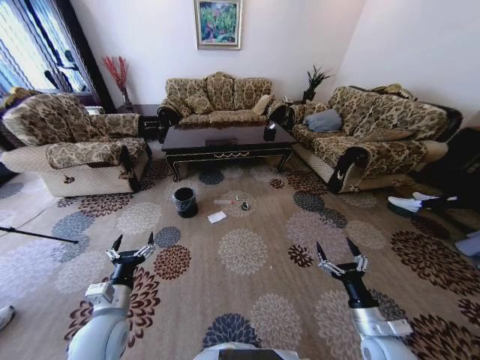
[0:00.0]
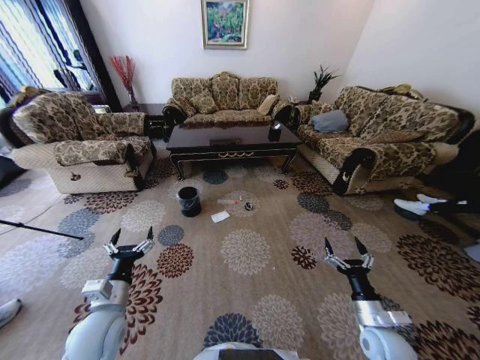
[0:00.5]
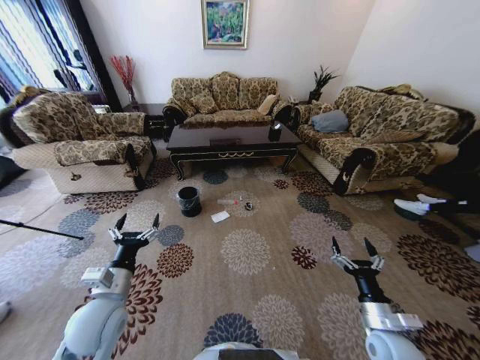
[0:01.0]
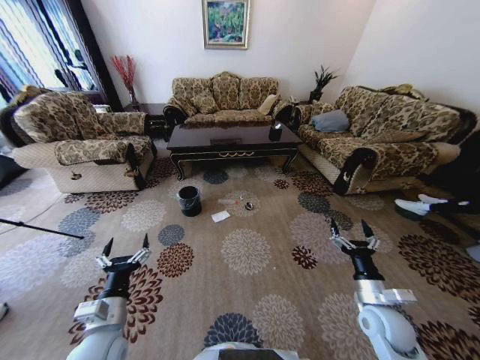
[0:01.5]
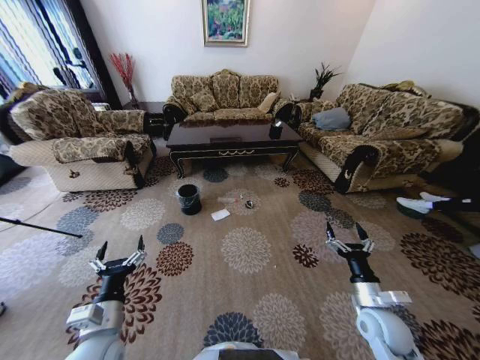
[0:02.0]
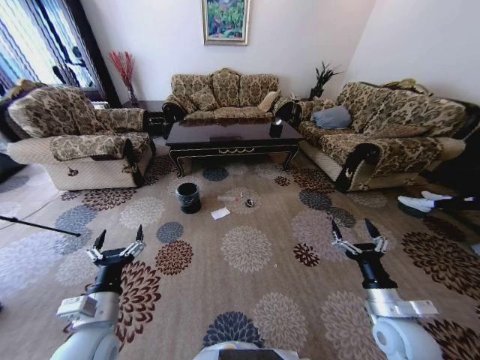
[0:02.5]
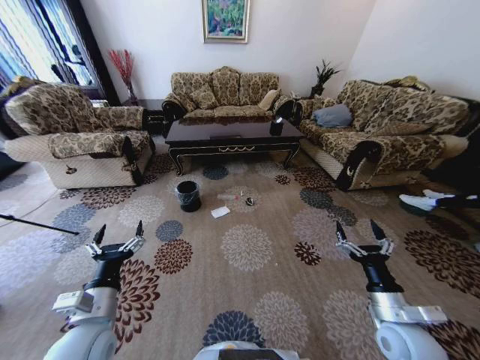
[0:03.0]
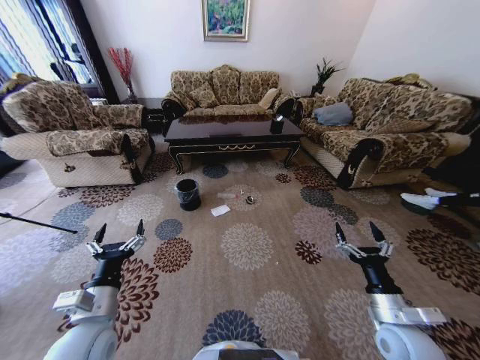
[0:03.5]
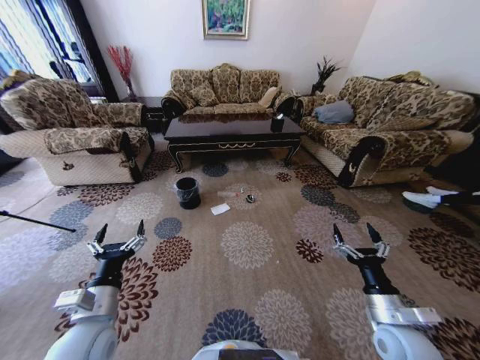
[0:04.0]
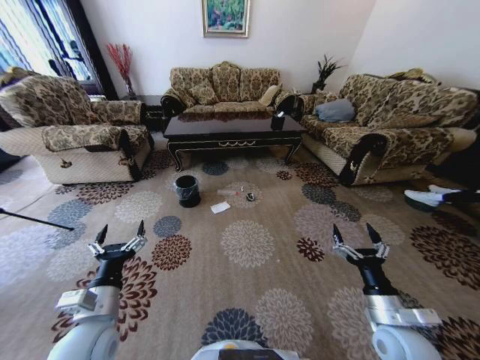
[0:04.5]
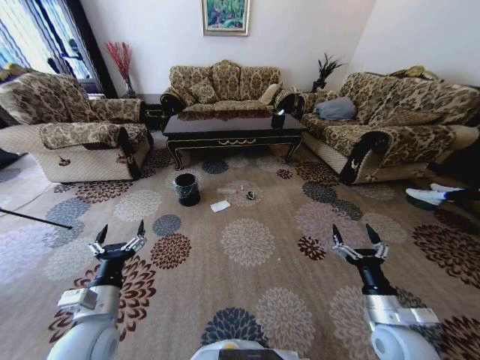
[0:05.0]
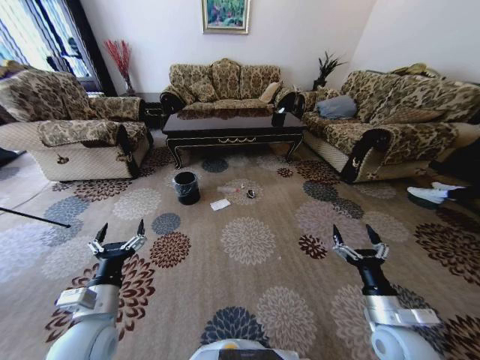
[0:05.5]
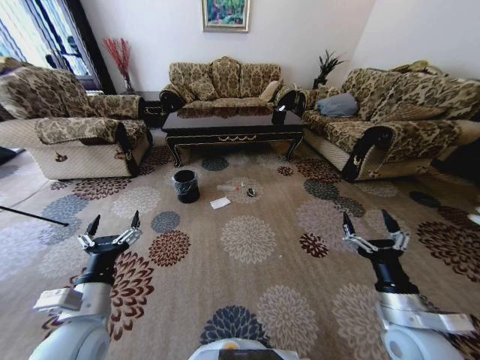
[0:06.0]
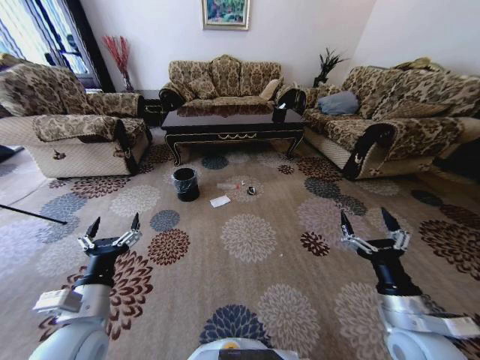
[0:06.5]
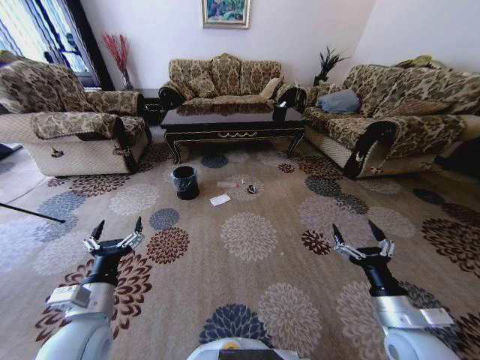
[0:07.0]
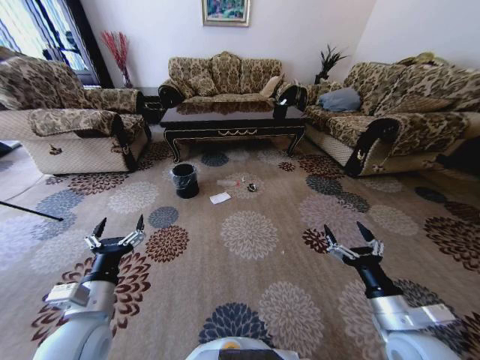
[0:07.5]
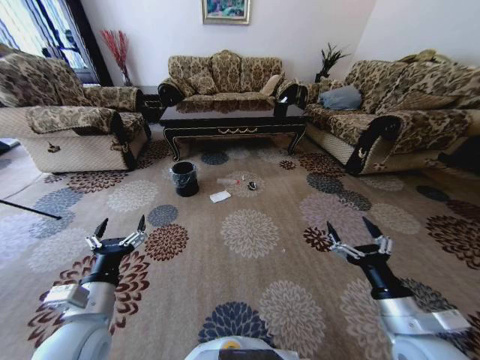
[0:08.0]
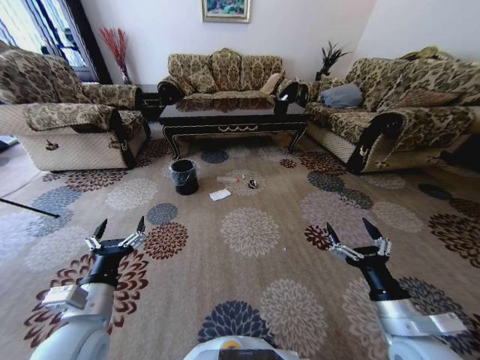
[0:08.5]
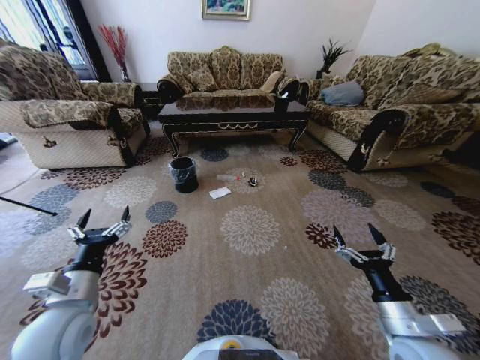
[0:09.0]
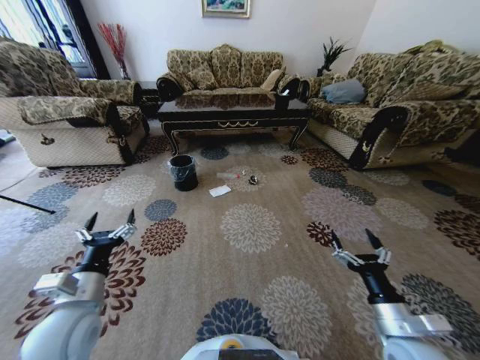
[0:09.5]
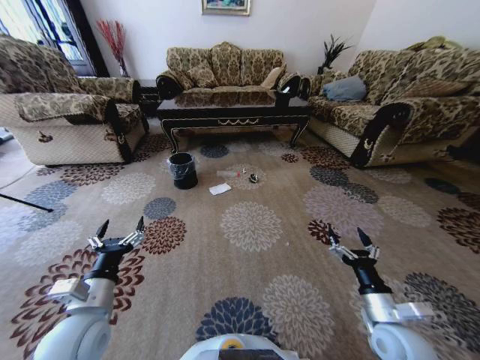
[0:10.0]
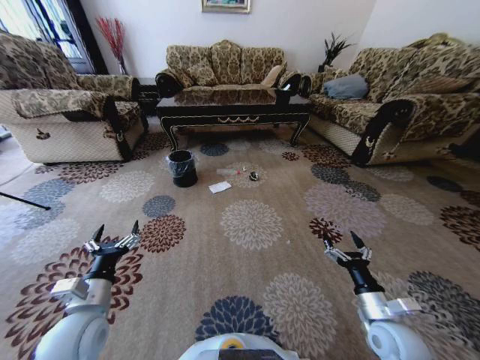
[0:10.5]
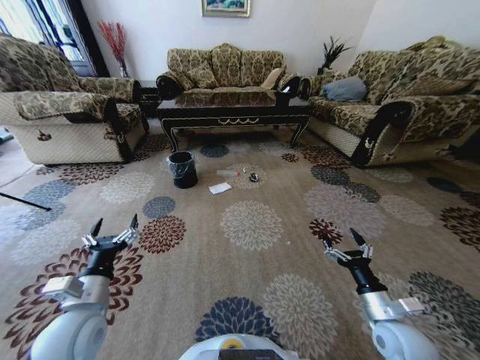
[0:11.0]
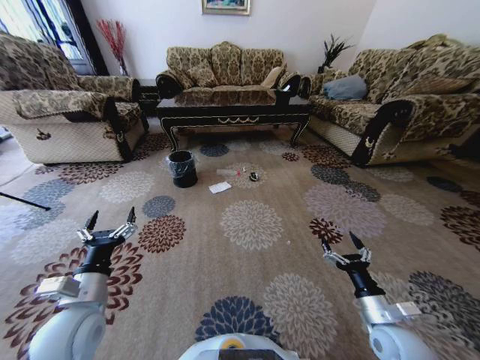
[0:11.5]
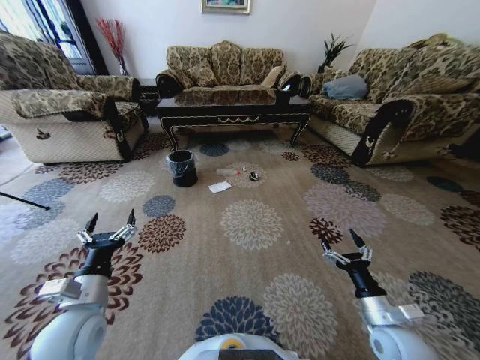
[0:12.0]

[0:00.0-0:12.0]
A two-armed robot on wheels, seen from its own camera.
Task of the whole recording: Move to the front of the table and pick up the trash from the floor, then place it into the trash bin.
0:02.0 to 0:04.0: The right gripper changes place by approximately 5 cm.
0:08.0 to 0:10.0: The right gripper is displaced downward by approximately 5 cm.
0:10.0 to 0:12.0: The grippers move only a little.

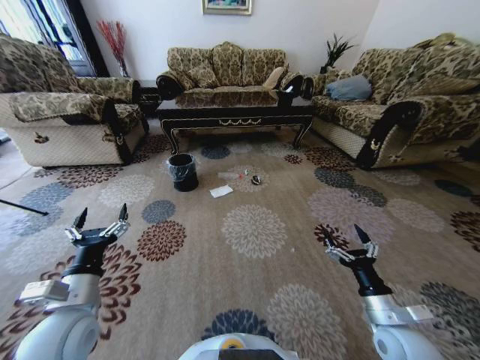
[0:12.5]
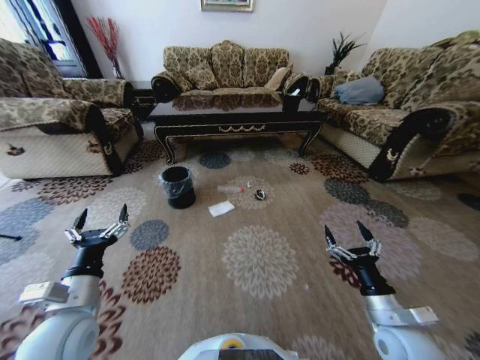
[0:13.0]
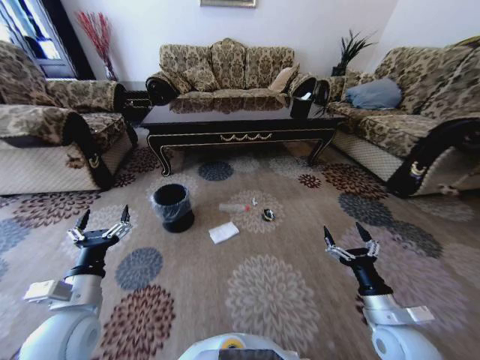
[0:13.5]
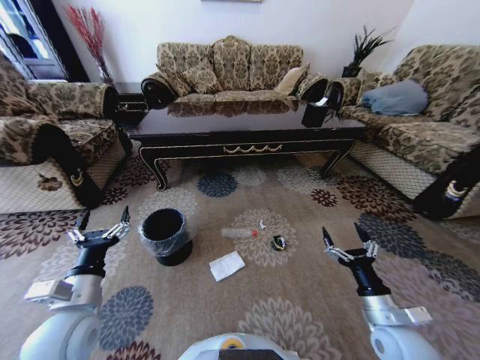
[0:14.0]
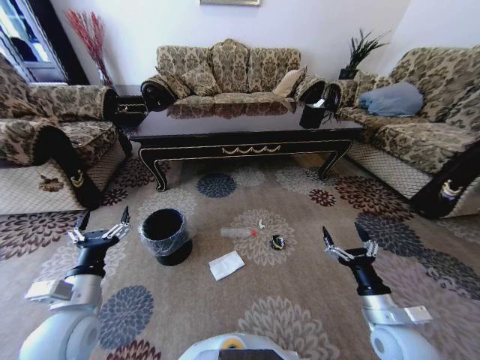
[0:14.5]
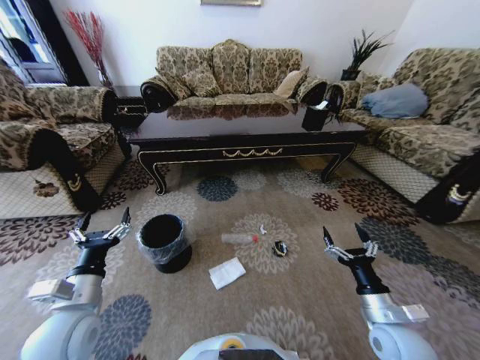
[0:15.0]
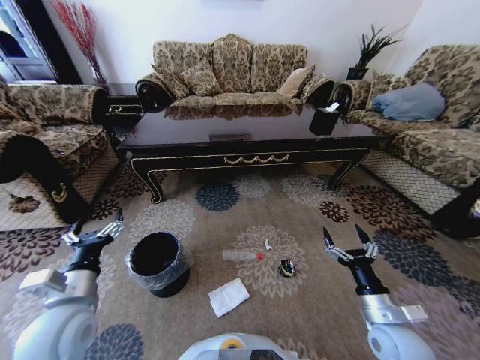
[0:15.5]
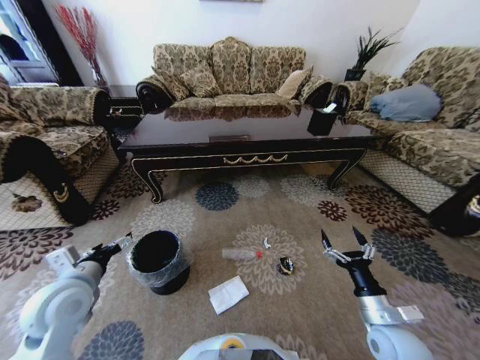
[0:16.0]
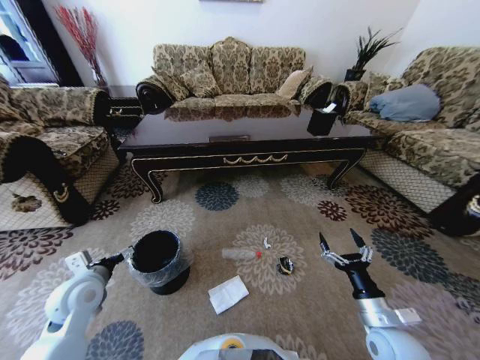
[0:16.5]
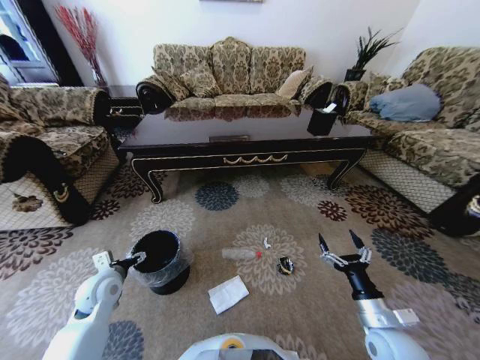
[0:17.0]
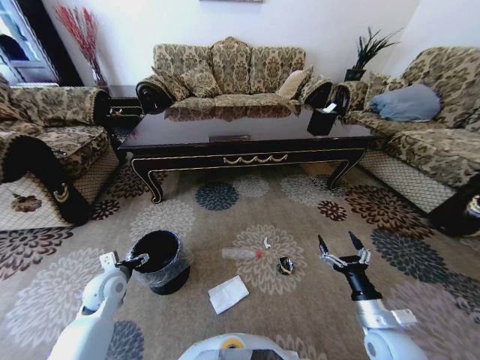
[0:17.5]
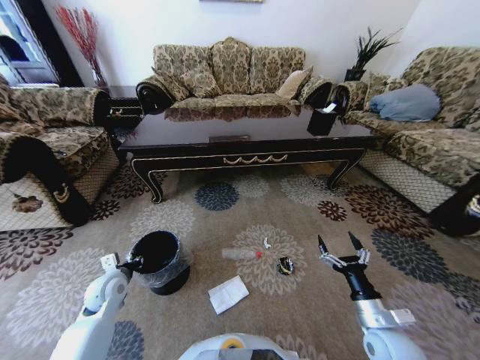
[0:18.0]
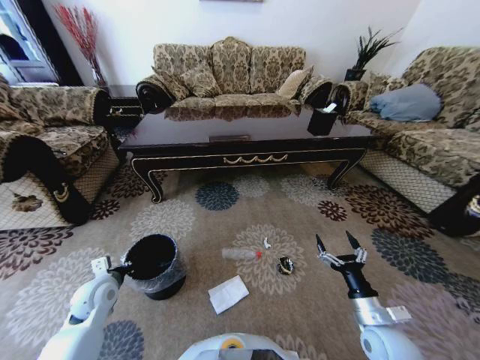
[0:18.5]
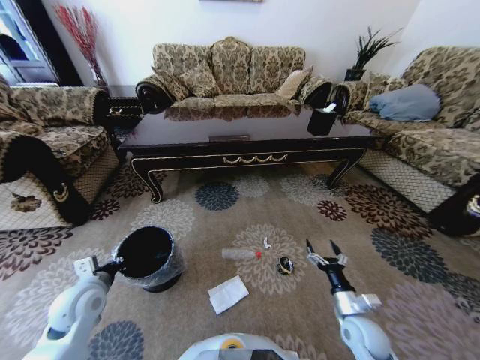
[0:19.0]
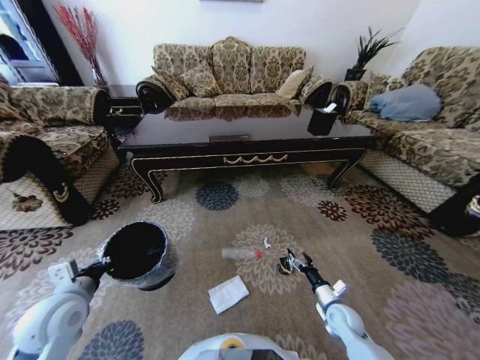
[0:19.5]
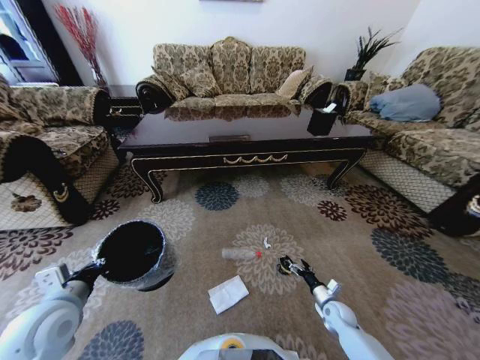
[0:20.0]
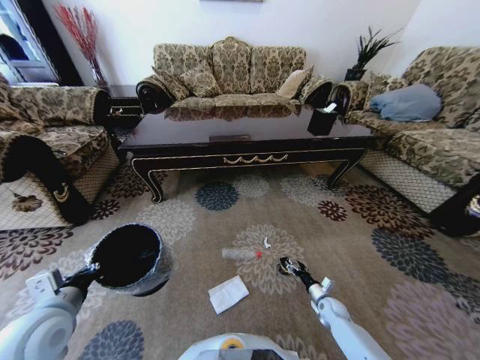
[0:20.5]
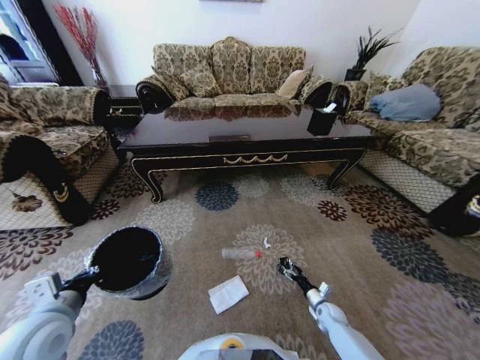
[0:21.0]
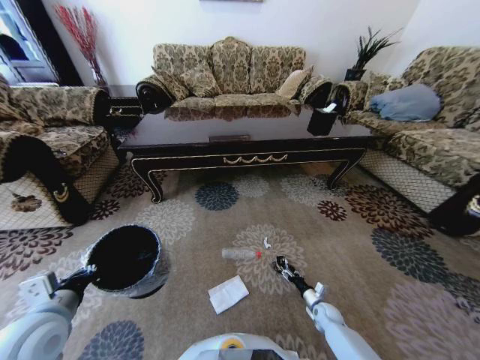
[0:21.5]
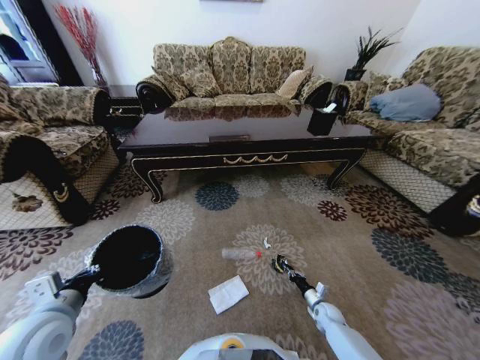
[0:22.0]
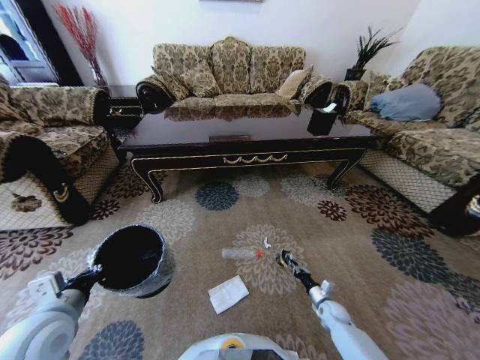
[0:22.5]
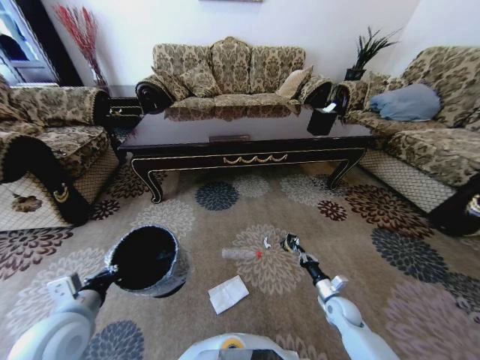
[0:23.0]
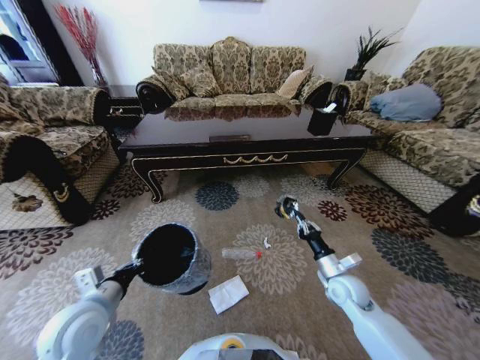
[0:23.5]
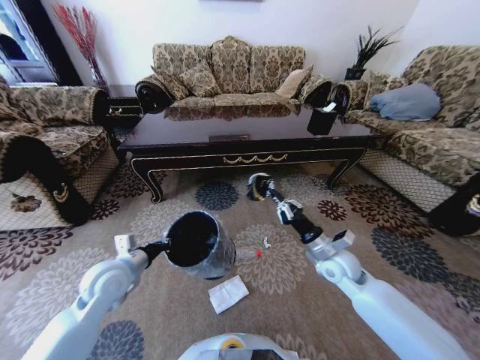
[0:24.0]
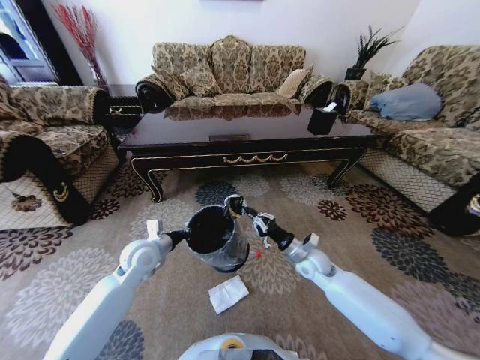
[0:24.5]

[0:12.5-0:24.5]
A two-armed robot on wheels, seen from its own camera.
Task of the whole recording: Move to the front of the table and pick up the trash from the floor, then place it into the trash bin.
0:14.5 to 0:16.5: The left gripper goes about 10 cm forward and to the left.
0:16.5 to 0:18.5: The left gripper shifts some 5 cm downward, and closes up.
0:18.5 to 0:20.5: The right gripper moves downward and forward, about 25 cm; the left gripper goes approximately 15 cm upward and backward.
0:20.5 to 0:22.5: The right gripper closes.
0:22.5 to 0:24.5: The right gripper travels upward and to the left by about 25 cm, while the left gripper moves forward and to the right, approximately 20 cm.

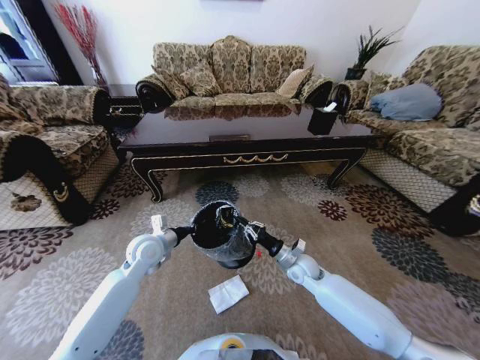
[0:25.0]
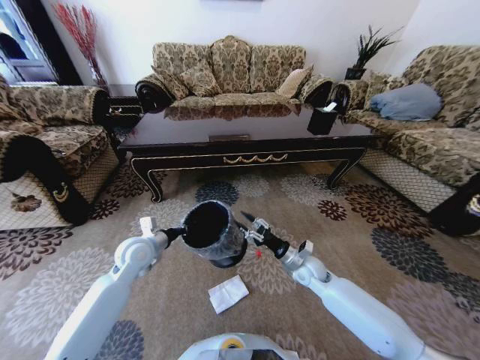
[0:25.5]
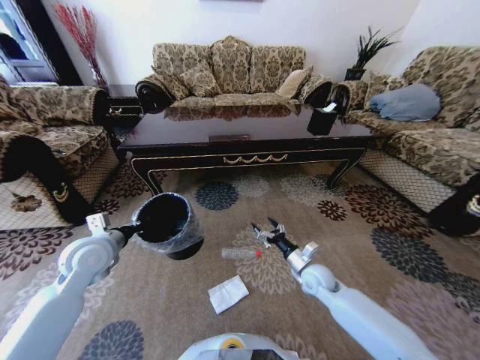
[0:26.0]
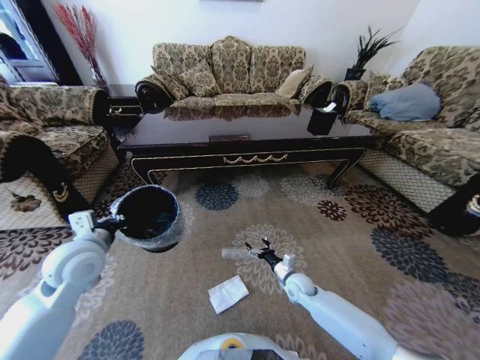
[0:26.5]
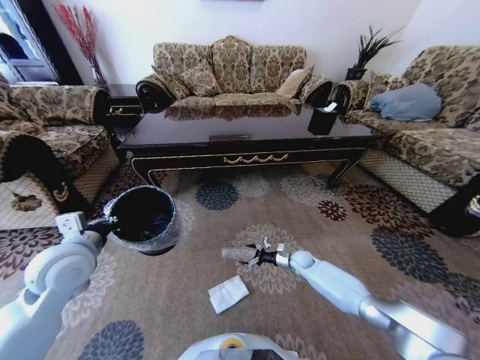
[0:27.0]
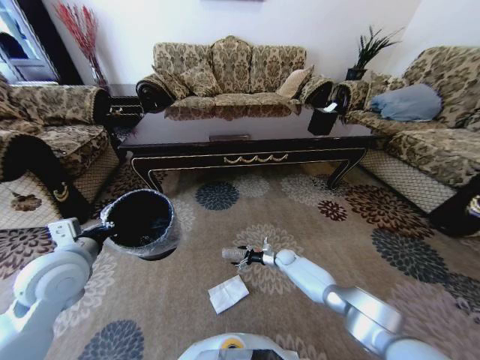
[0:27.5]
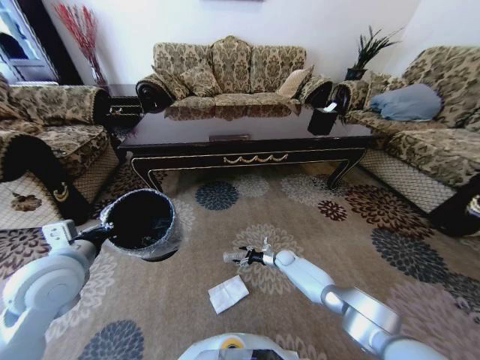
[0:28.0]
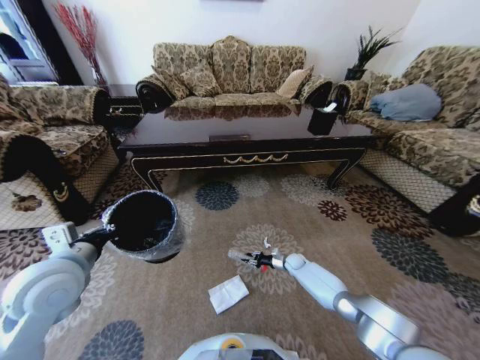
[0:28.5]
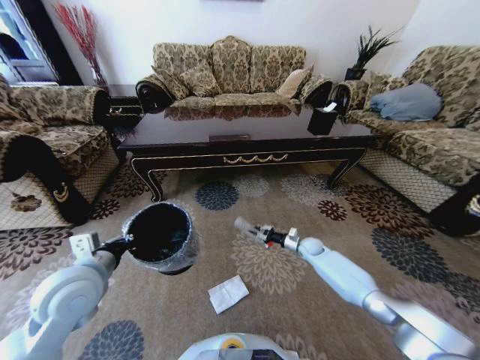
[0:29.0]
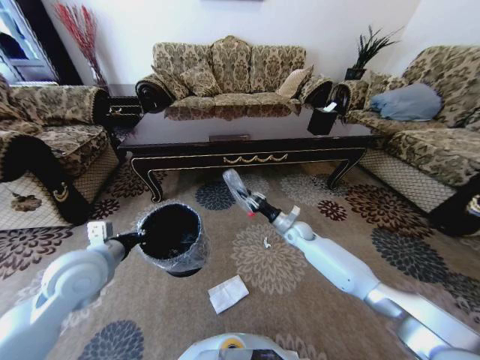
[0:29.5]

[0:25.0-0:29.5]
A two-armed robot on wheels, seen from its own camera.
Task of the whole recording: Move to the front of the table and pick up the trash from the floor, then place it into the trash bin.
0:25.0 to 0:27.0: The left gripper heads upward, to the left and backward, covering about 15 cm, while the right gripper is displaced downward, forward and to the right by roughly 15 cm, and opens up.
0:27.0 to 0:29.5: The right gripper heads upward, covering about 15 cm, and closes up.
